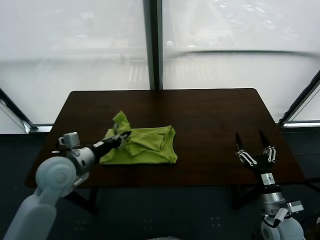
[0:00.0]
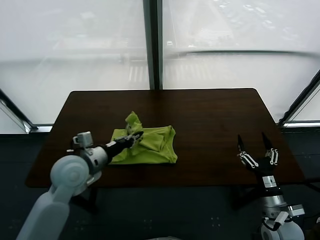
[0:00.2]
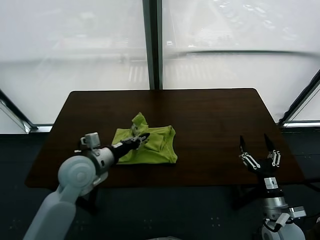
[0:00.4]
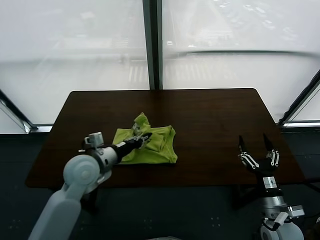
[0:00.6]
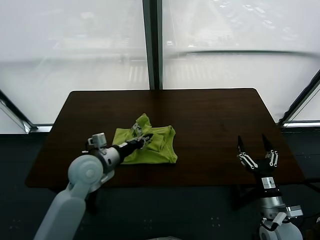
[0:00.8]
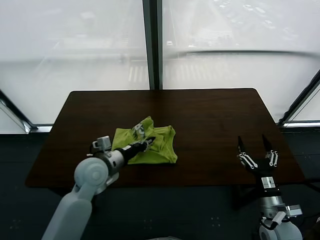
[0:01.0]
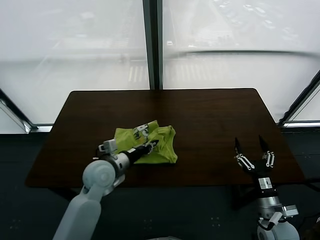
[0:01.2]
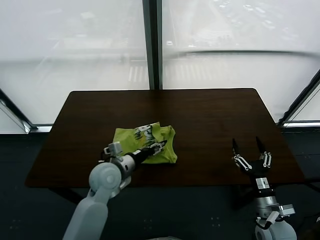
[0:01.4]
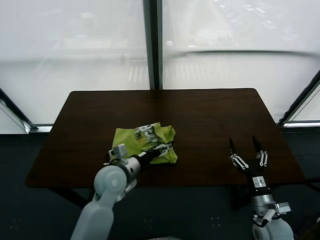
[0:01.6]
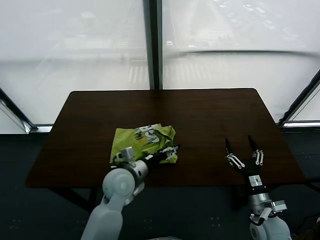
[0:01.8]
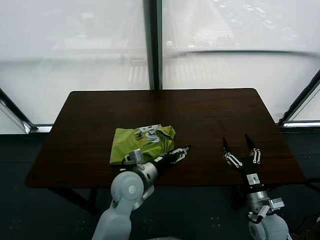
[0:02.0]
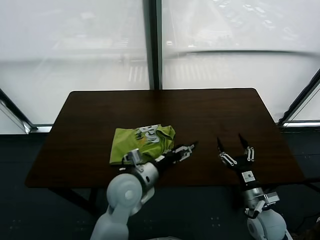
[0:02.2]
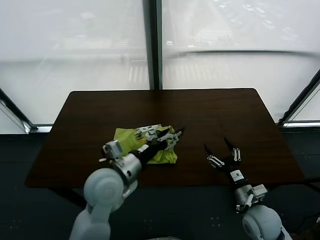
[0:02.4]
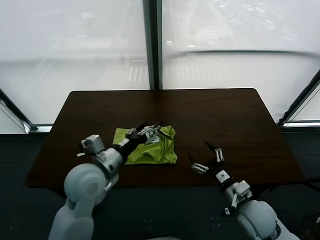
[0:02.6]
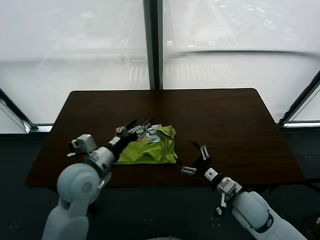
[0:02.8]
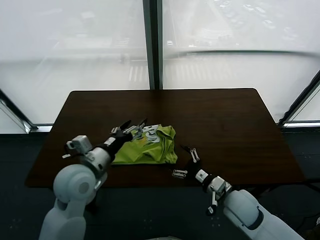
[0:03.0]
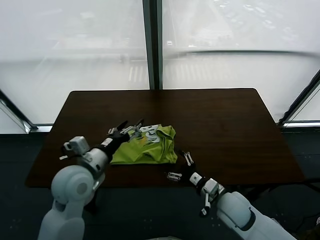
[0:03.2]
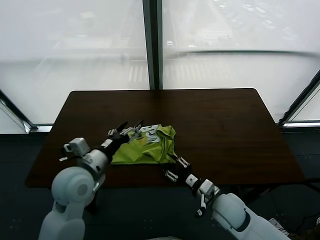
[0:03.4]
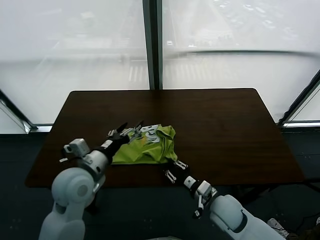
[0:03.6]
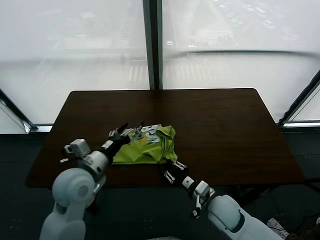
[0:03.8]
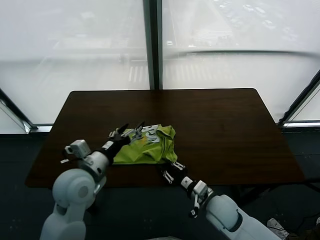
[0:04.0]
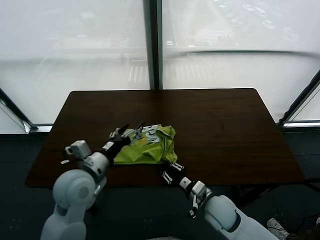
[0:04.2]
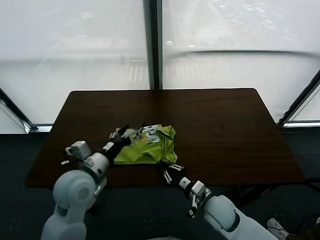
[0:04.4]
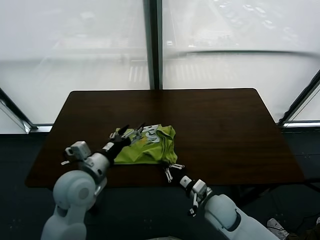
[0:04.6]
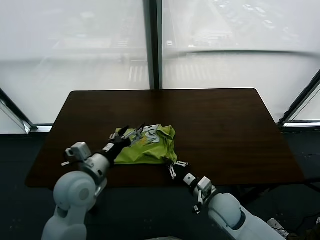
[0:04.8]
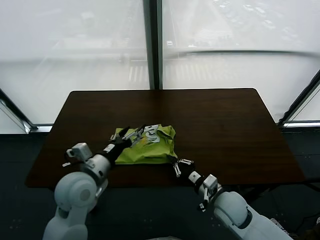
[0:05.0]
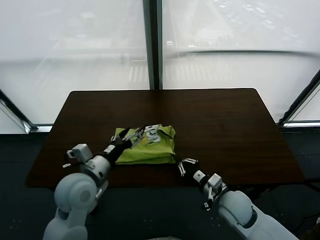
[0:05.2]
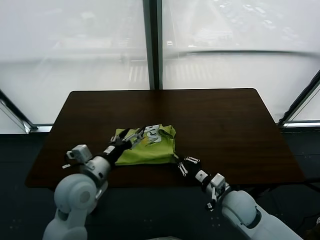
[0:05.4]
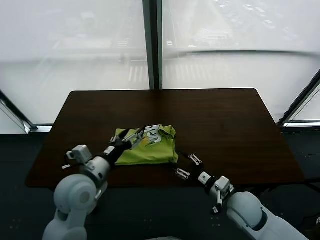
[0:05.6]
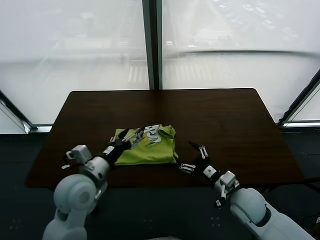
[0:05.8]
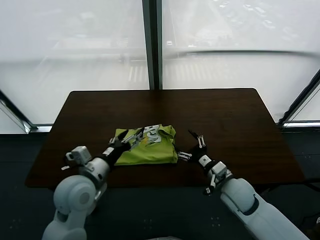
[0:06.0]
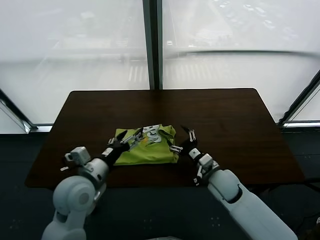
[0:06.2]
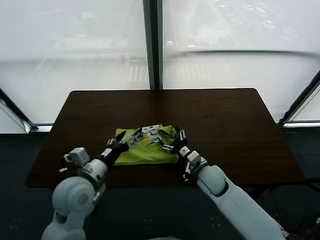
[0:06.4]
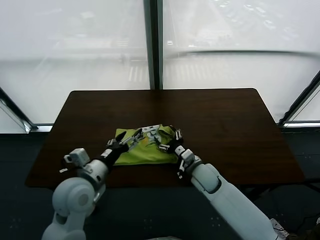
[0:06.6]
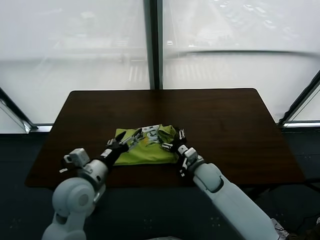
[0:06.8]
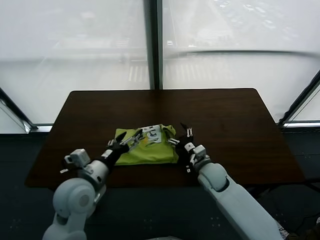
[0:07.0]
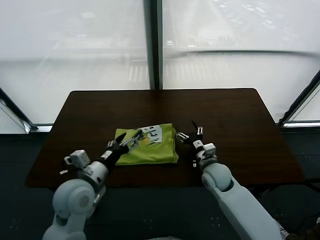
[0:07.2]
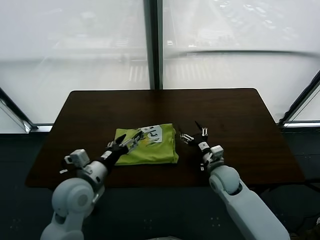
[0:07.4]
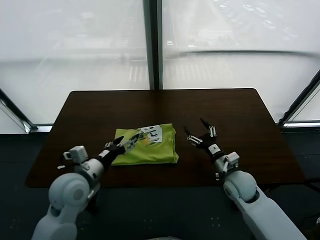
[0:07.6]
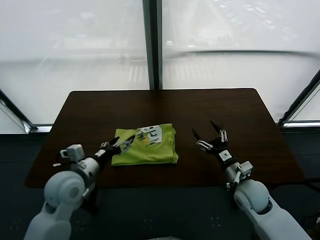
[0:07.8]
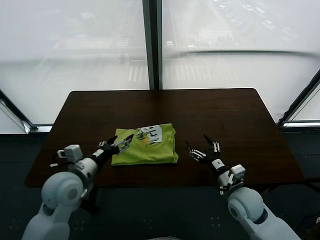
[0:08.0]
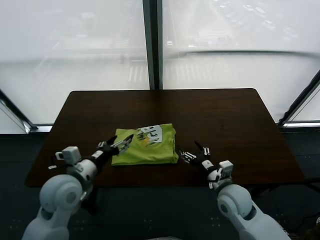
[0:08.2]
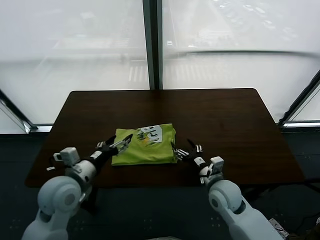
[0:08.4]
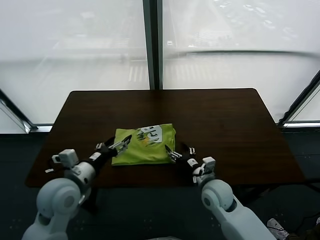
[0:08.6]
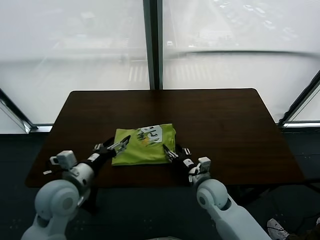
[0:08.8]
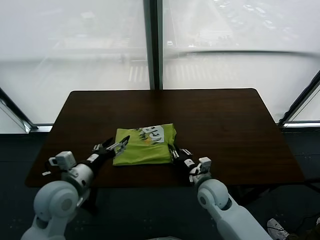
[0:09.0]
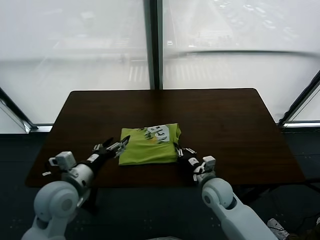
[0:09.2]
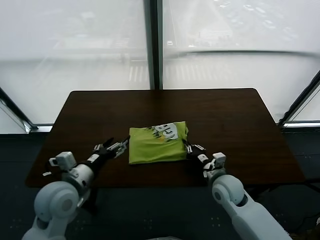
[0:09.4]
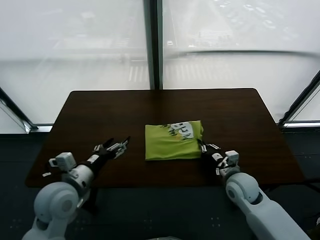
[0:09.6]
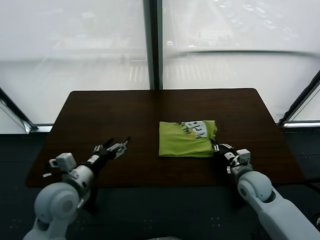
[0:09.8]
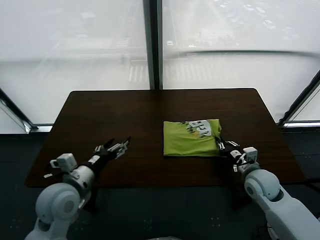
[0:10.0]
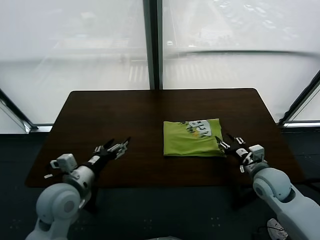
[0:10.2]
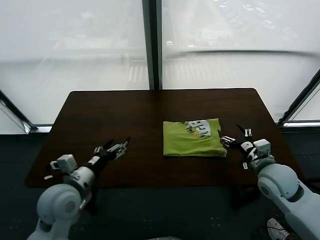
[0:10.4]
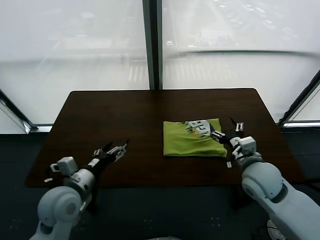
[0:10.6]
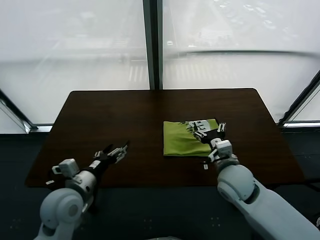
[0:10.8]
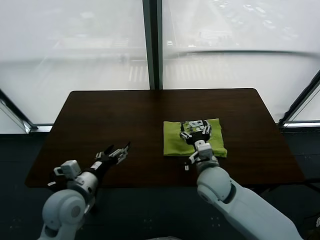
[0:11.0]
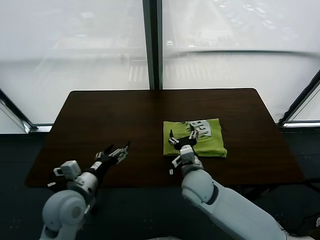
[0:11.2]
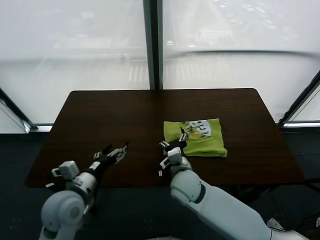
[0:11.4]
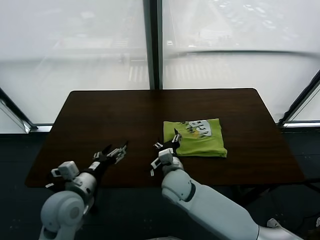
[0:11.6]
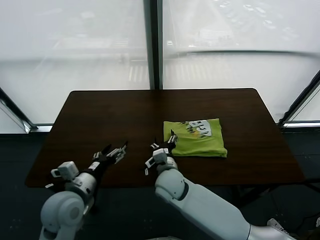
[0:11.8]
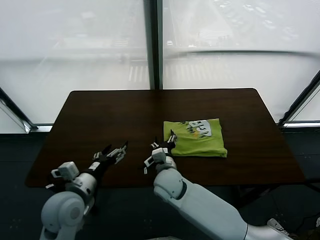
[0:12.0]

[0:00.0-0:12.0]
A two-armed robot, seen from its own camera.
Task of the whole recording: fold and organize the clothes.
Step, 0:00.0 to 0:01.8: use the left gripper to drag the left edge of the fabric to the left and folds it over the right edge.
Step, 0:02.2 to 0:10.2: Drag the clothes to the center of the table.
0:00.0 to 0:01.6: The left gripper moves to the right and downward, about 15 cm, and opens.
0:01.6 to 0:03.0: The right gripper is displaced to the left and forward by roughly 10 cm; the left gripper moves upward and to the left, about 10 cm.
0:03.0 to 0:04.4: The right gripper ends up about 5 cm from where it was, and closes its fingers.
0:04.4 to 0:06.0: The right gripper is displaced forward by about 5 cm, and opens up.
0:07.6 to 0:09.0: The right gripper heads to the left, covering some 10 cm.
0:09.0 to 0:10.4: The right gripper heads to the right and upward, covering approximately 20 cm, and closes, then reopens.
0:10.4 to 0:12.0: The right gripper goes about 30 cm to the left.

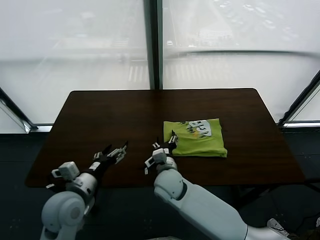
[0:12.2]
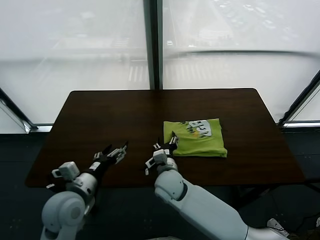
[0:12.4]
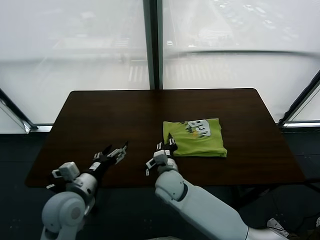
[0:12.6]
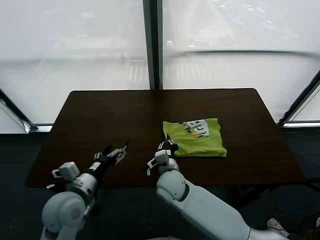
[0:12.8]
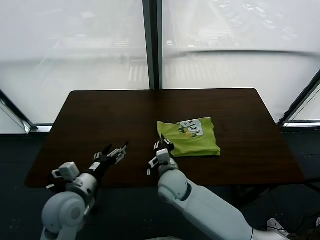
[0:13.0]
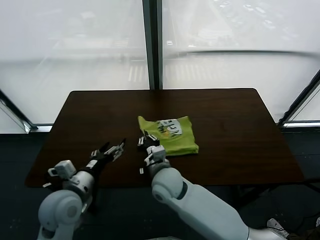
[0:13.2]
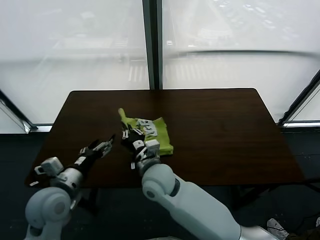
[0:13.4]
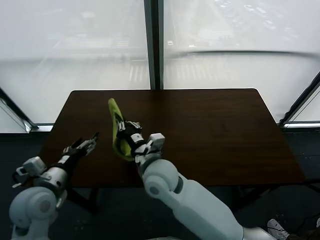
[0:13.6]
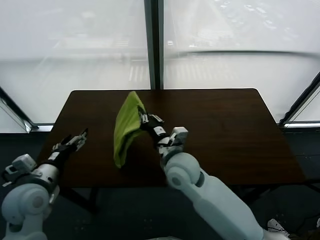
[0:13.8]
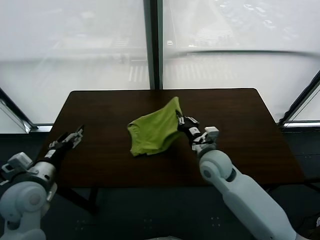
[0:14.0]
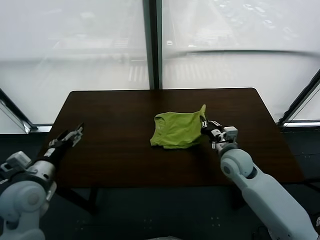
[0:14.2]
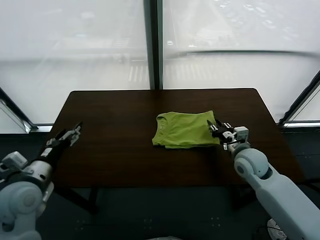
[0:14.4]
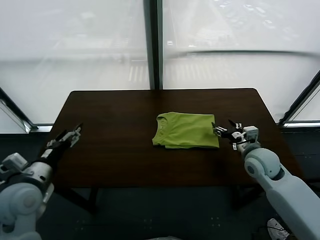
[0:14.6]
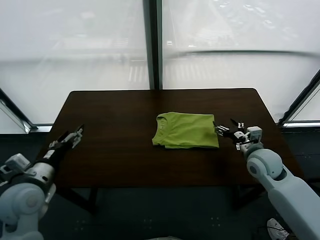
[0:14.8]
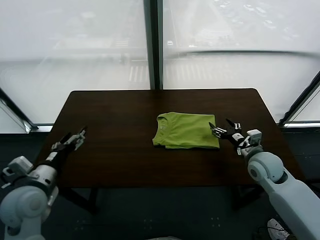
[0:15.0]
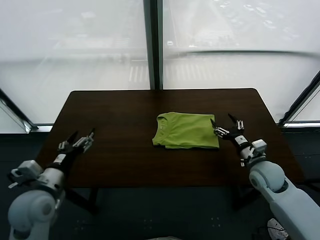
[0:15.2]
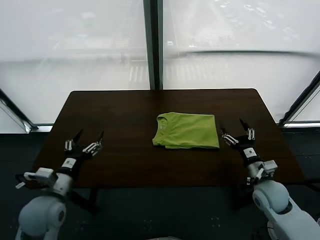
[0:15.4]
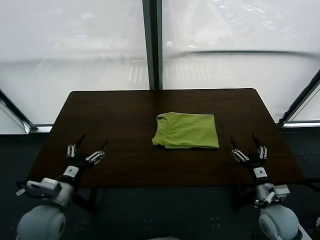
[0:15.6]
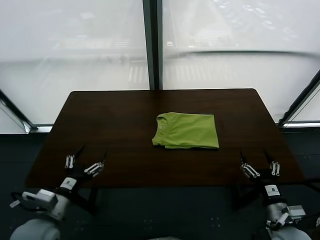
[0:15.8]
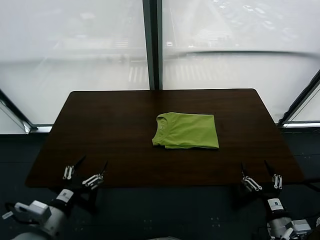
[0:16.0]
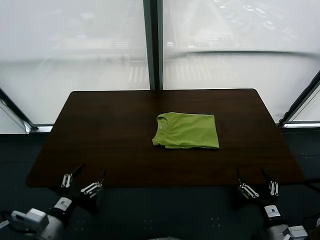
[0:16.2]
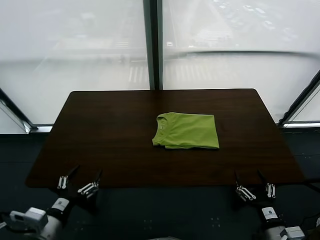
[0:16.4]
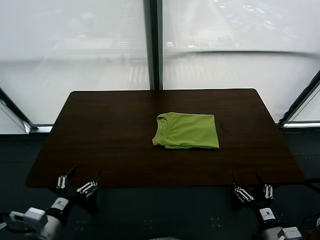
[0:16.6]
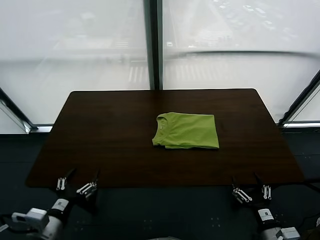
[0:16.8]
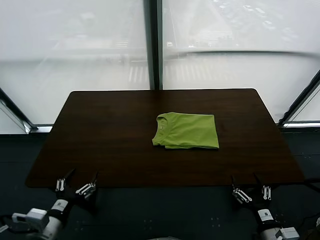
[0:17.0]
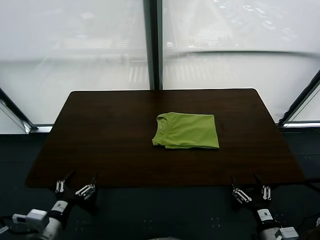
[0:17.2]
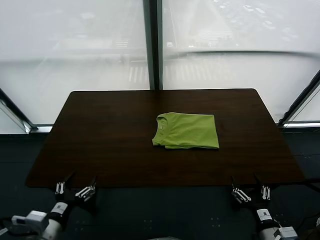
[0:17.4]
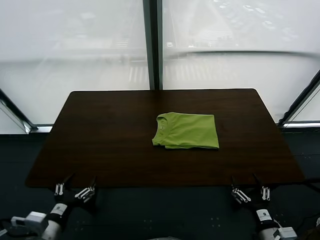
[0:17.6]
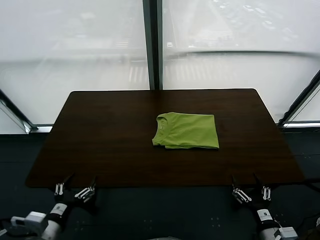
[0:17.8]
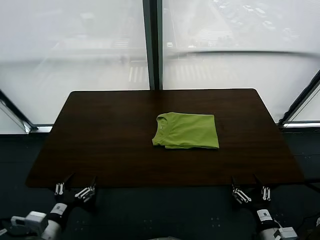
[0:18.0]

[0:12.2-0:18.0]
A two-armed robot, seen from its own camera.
Task of the whole recording: fold and organize the clothes.
Step, 0:12.2 to 0:14.4: Flip the folded clothes over with right gripper.
0:12.2 to 0:13.6: The left gripper is displaced to the left by roughly 5 cm, while the right gripper heads upward, covering roughly 10 cm, and closes.
0:13.6 to 0:15.0: The right gripper heads to the right, covering roughly 35 cm, and opens its fingers.
0:15.0 to 0:16.6: The right gripper shifts some 25 cm backward. The left gripper is displaced backward by some 10 cm.
0:16.6 to 0:18.0: The grippers make only small movements.

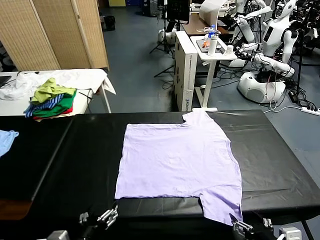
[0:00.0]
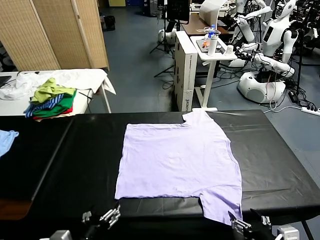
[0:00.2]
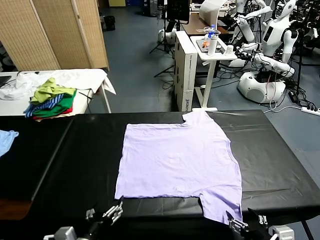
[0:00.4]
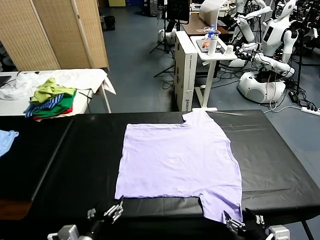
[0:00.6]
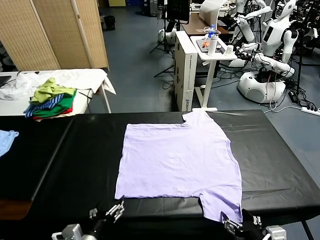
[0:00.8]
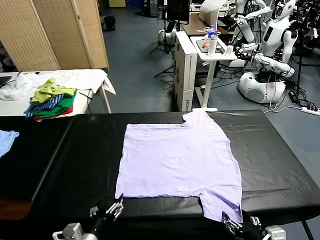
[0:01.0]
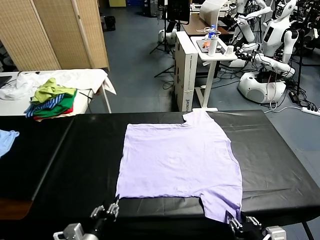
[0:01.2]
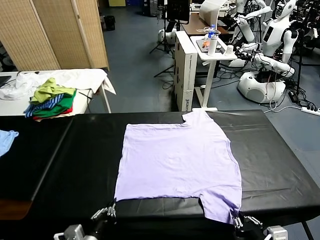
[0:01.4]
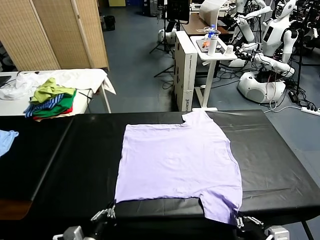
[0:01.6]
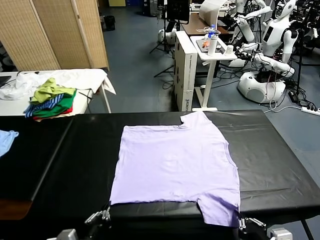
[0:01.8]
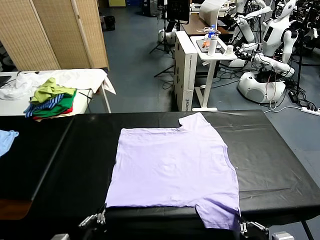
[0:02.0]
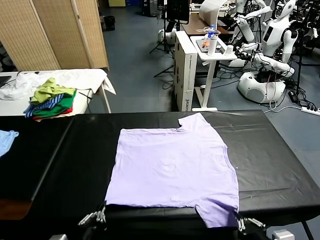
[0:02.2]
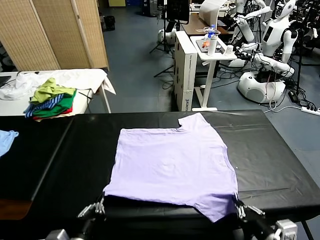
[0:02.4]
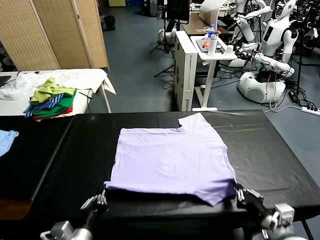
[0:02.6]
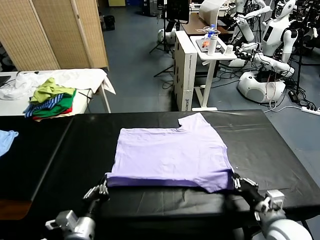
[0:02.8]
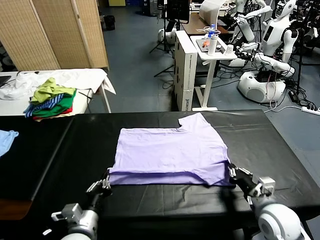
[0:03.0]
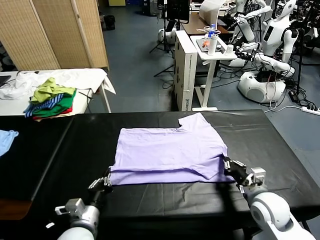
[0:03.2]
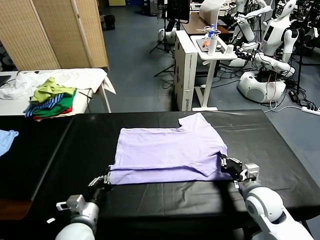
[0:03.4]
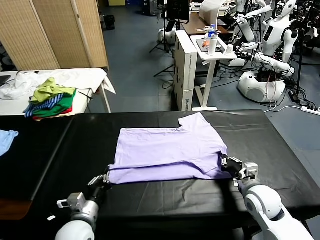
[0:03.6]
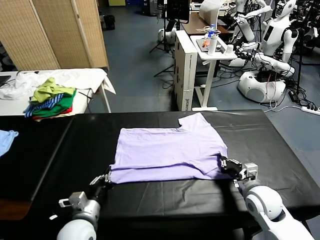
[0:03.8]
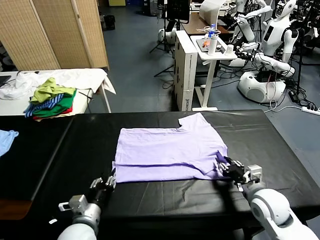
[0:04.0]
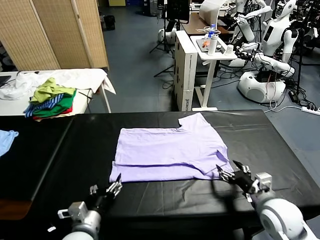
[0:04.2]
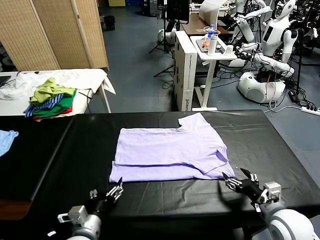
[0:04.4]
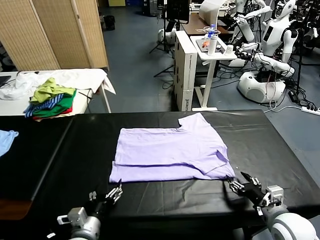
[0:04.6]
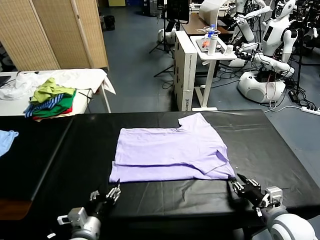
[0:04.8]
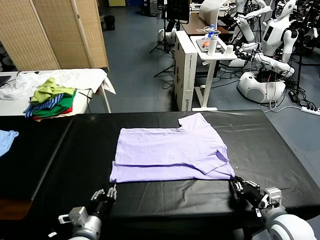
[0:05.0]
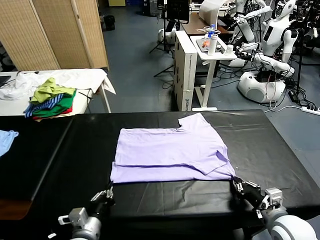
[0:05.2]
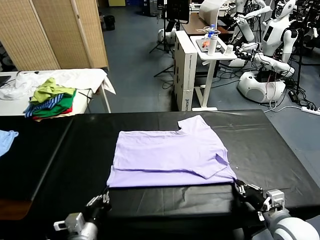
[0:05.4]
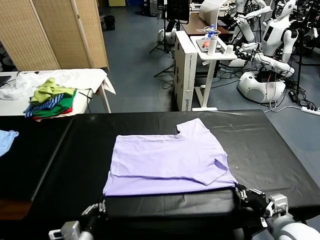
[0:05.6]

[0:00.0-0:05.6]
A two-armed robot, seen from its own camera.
Task of the whole recording: fold and organize the clothes.
Step, 0:00.0 to 0:01.8: use both grippers simultaneously to clamp the lower edge of the clothing fabric.
Step, 0:02.0 to 0:04.0: use both grippers to drag the lower edge of the fabric forward and fold it over the upper edge.
0:01.4 to 0:02.8: The right gripper is displaced forward by about 15 cm; the left gripper travels forward by some 5 cm.
0:02.8 to 0:04.2: The left gripper opens, while the right gripper opens its fingers.
0:04.2 to 0:05.6: Both grippers travel together backward, approximately 5 cm. The right gripper closes. The left gripper closes up.
